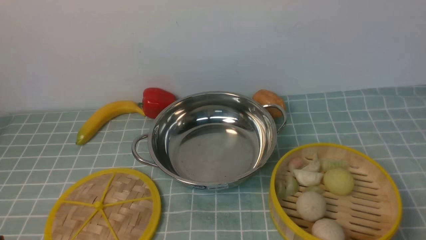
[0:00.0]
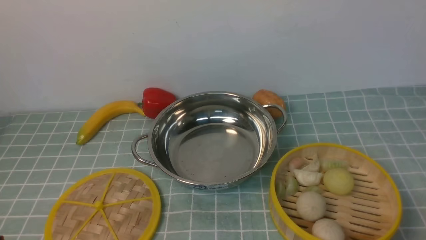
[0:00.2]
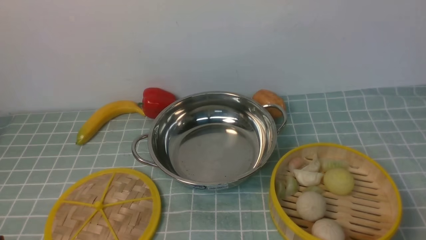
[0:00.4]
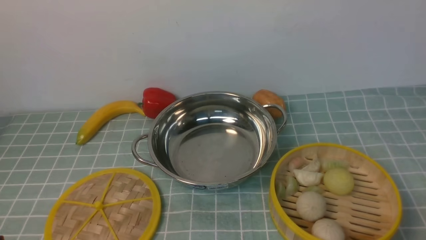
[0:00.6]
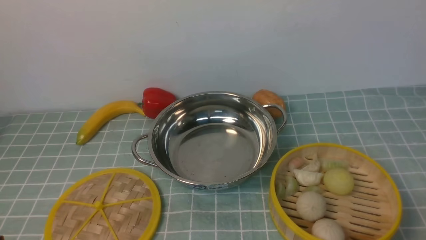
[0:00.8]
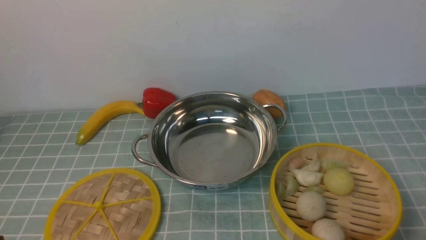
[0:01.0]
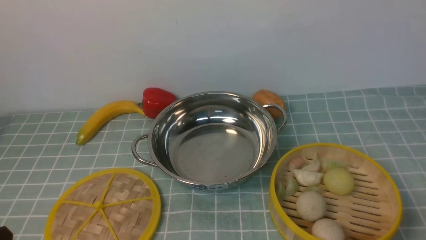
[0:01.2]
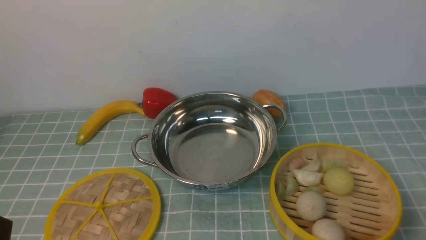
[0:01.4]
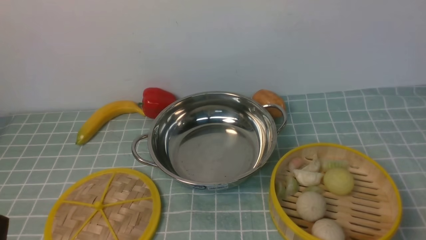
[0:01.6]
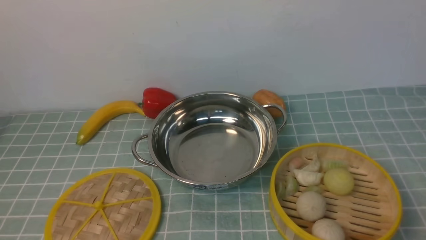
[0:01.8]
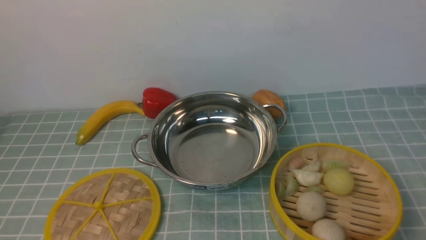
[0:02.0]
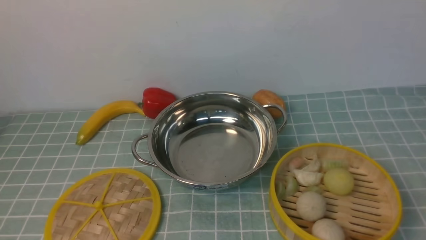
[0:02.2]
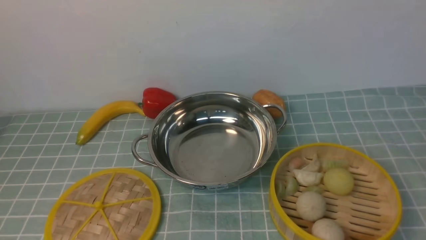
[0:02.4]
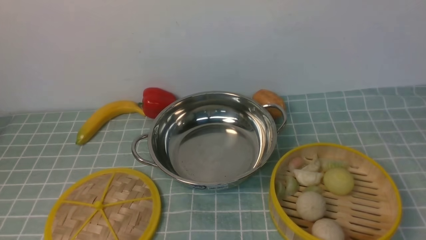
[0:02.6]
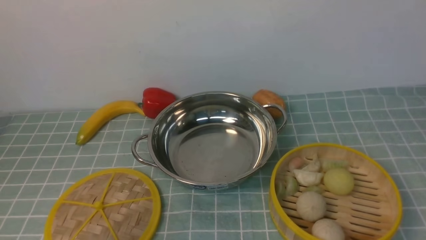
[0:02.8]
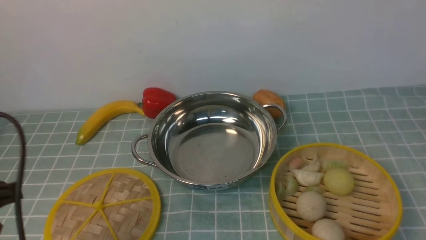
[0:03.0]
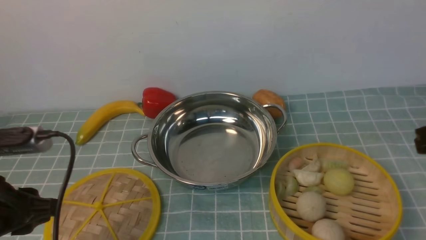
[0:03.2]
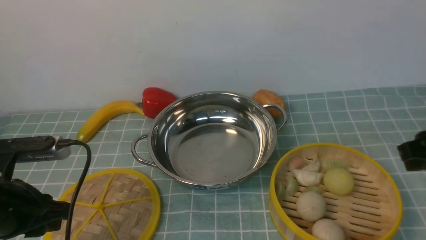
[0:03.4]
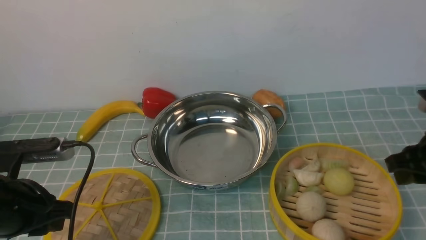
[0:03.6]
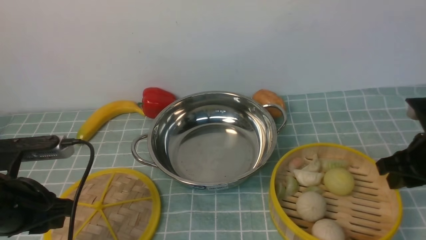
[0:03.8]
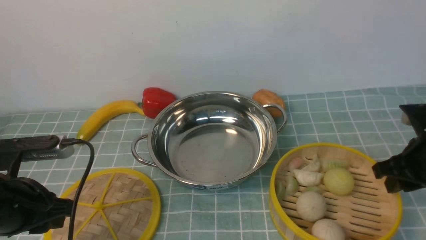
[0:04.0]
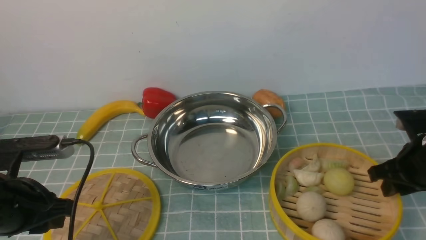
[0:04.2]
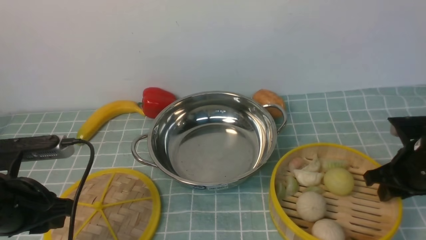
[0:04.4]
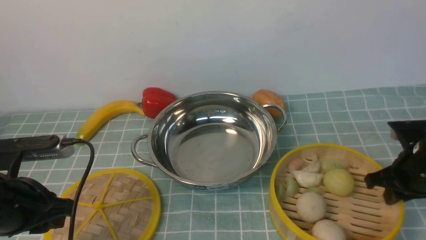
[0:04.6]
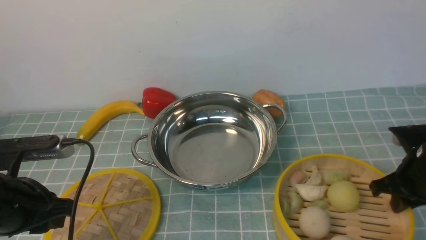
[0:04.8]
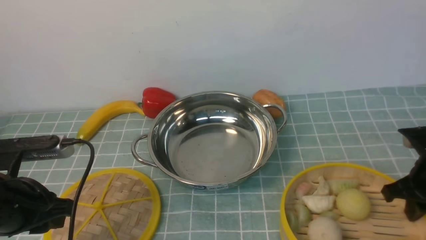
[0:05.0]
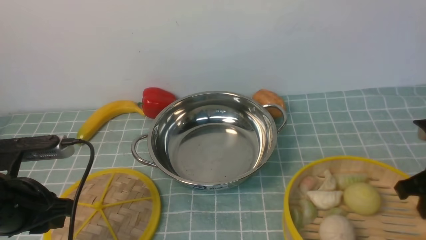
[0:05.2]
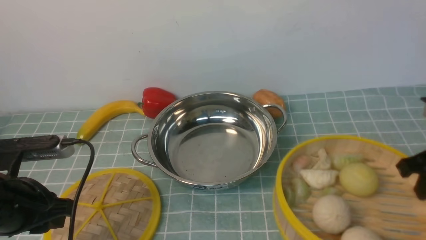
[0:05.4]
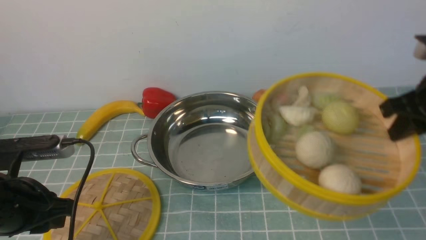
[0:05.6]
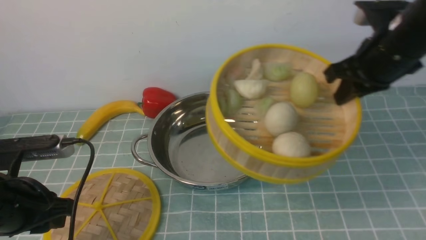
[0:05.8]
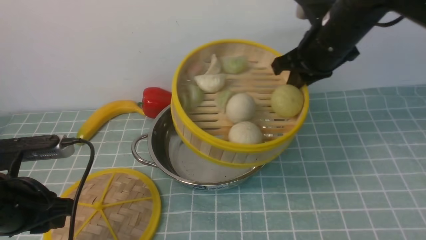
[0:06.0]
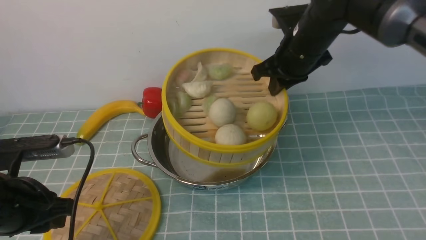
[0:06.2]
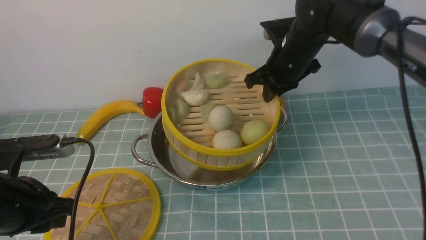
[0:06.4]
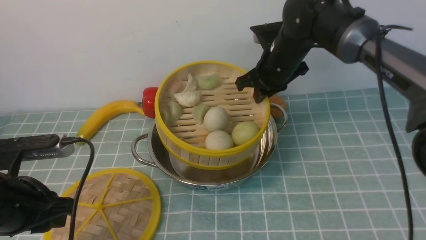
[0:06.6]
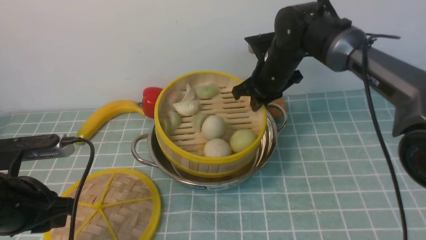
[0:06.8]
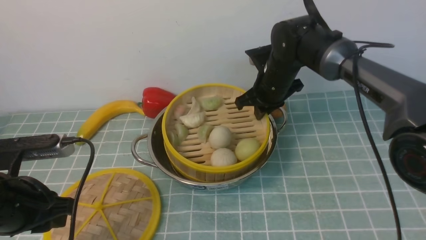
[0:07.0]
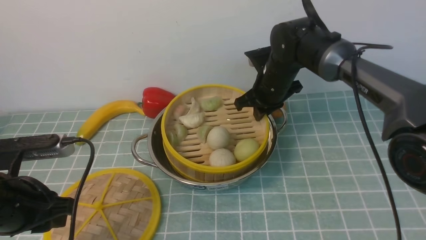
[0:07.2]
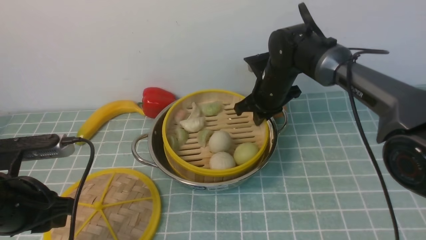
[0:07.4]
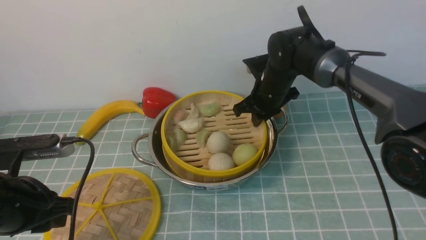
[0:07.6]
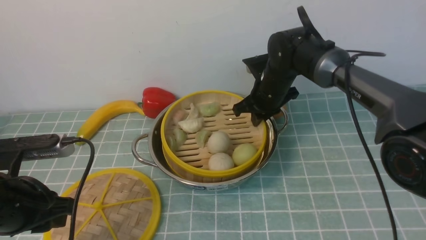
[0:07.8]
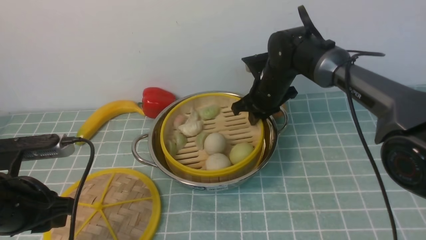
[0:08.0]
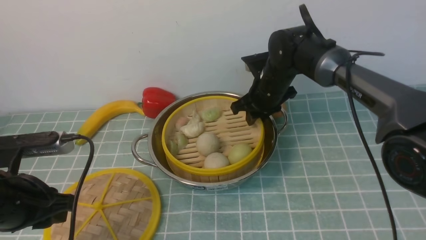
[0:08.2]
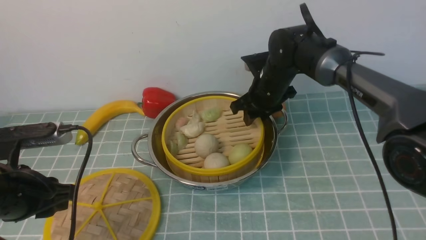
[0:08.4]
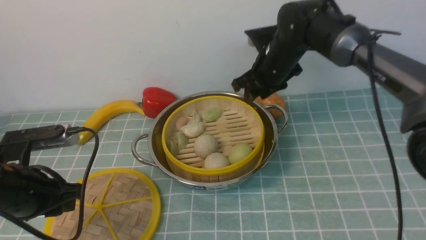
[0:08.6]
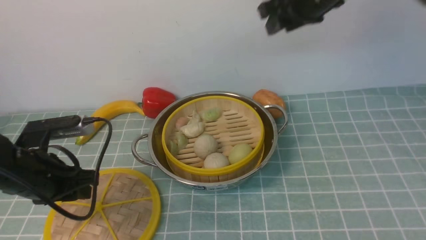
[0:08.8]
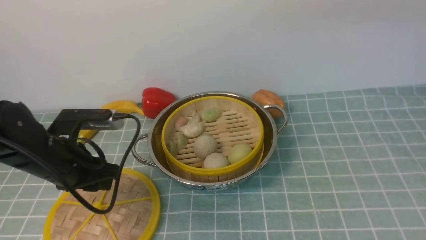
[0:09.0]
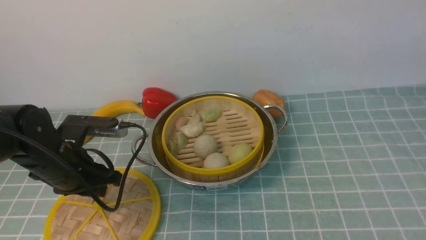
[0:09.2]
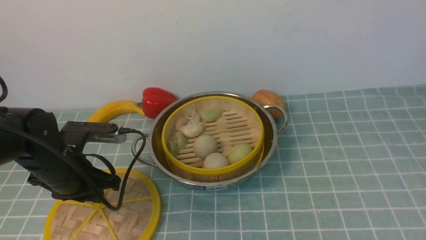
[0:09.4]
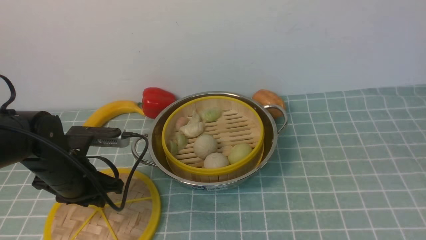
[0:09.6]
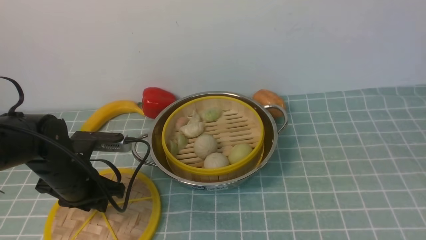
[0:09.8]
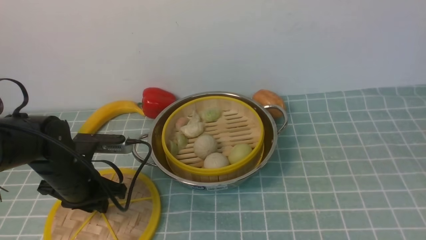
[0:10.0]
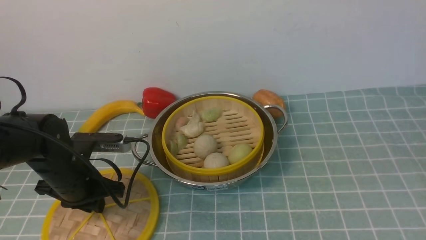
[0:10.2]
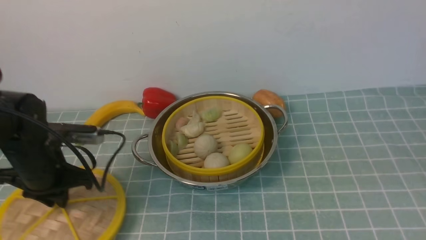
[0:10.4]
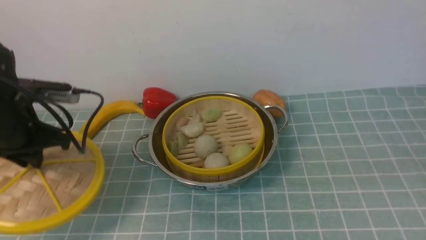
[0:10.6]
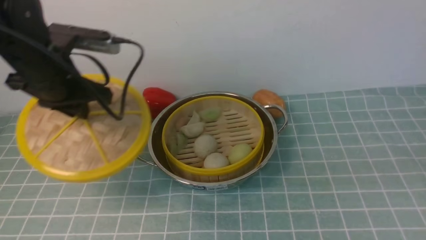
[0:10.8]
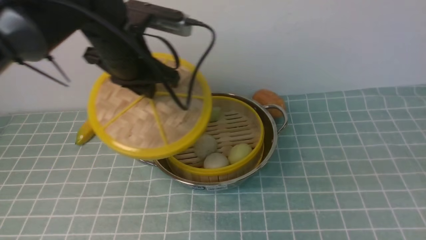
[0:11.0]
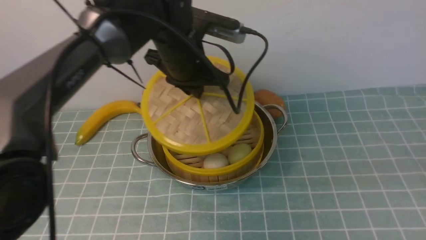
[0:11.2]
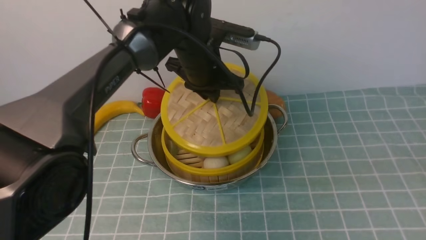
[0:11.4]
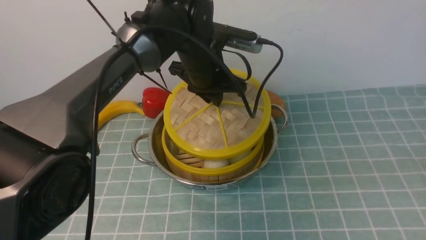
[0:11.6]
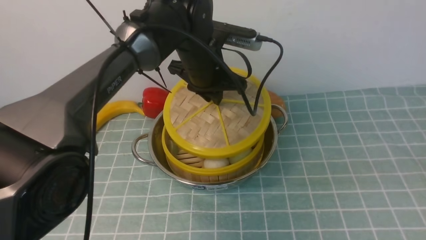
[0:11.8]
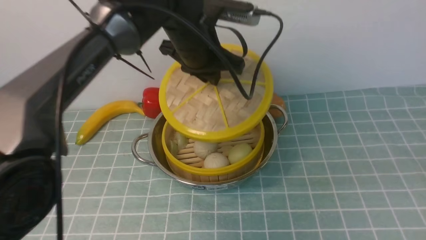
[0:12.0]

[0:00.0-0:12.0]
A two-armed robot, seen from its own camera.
Task of the whole recording: place the steamer in the pot on the blue tablecloth, and put the lid on the steamer.
Step, 0:00.0 to 0:05.6: use the right arm to lift the steamer closest to it.
Step, 0:05.8 to 0:08.6: use the right arm to put the steamer into the iron steamer pot in the middle.
Step, 0:08.8 to 0:10.4: use the left arm to lift the lid of the steamer.
0:01.6 to 0:03.0: The left gripper shifts approximately 15 cm upward and forward.
0:03.0 to 0:04.4: The right gripper shifts about 20 cm downward and forward. Meanwhile the left gripper moves forward and downward, approximately 10 cm.
0:04.4 to 0:06.0: The right gripper goes about 20 cm upward, to the left and forward, and closes its fingers.
0:06.0 to 0:07.6: The right gripper travels downward, to the left and forward by about 20 cm.
0:07.6 to 0:09.0: The left gripper shifts about 5 cm forward. The right gripper moves upward and backward, roughly 30 cm, and opens its fingers.
0:10.4 to 0:12.0: The left gripper shifts approximately 25 cm to the right, upward and forward.

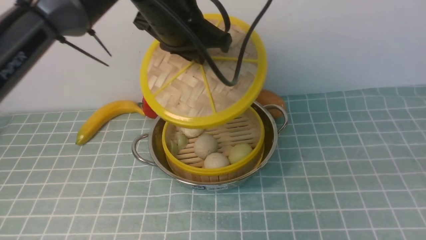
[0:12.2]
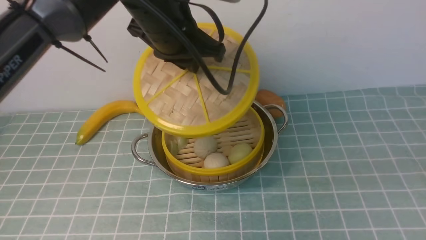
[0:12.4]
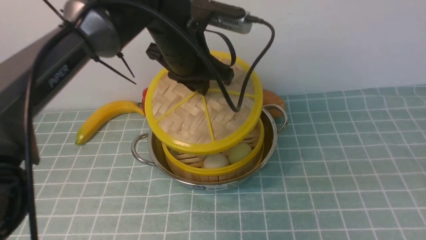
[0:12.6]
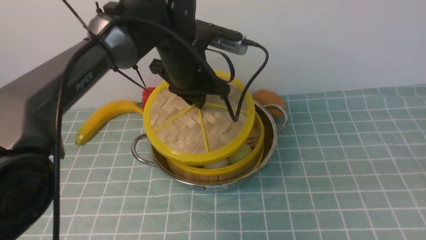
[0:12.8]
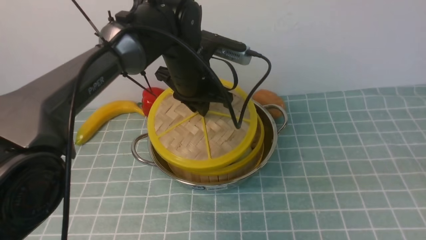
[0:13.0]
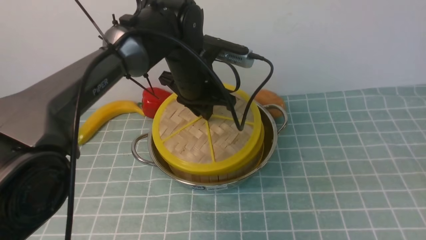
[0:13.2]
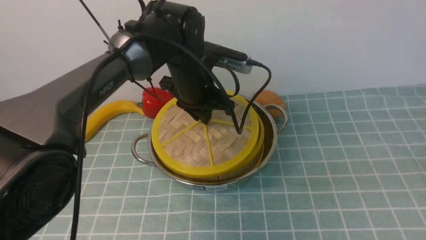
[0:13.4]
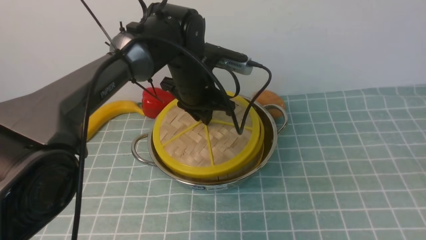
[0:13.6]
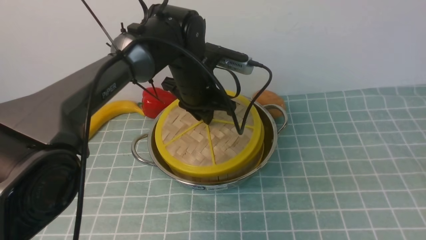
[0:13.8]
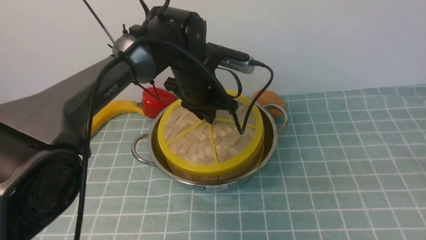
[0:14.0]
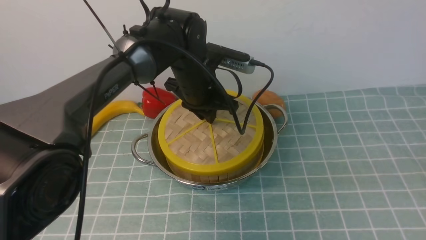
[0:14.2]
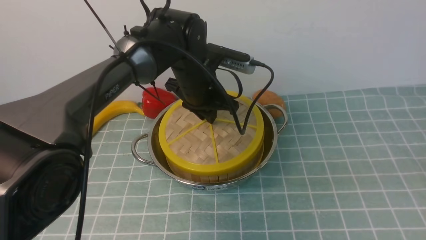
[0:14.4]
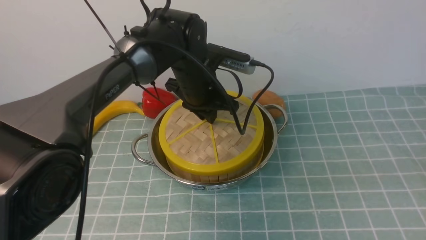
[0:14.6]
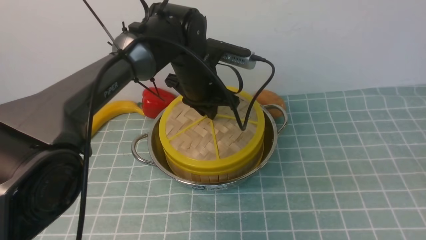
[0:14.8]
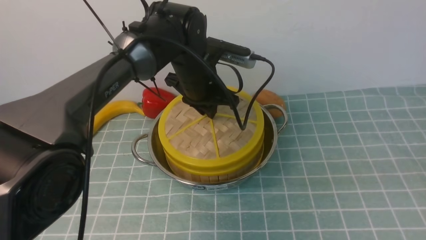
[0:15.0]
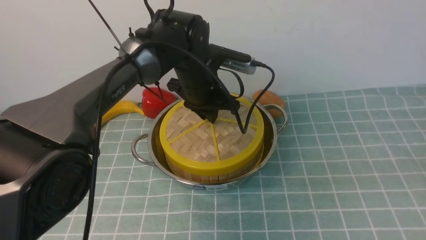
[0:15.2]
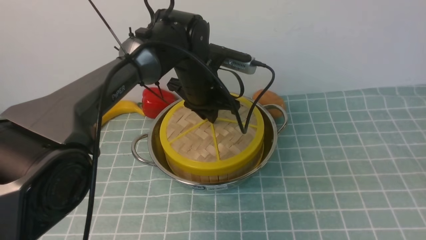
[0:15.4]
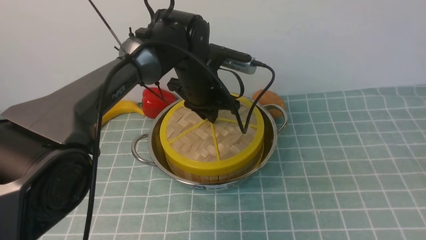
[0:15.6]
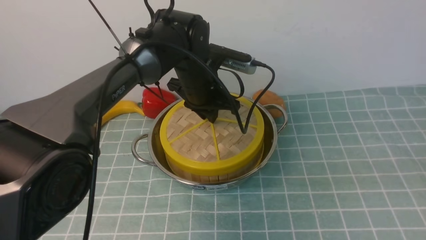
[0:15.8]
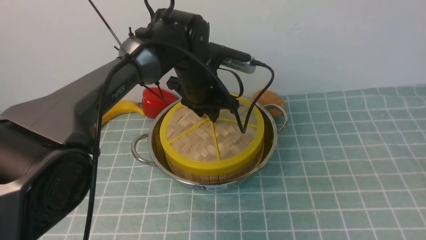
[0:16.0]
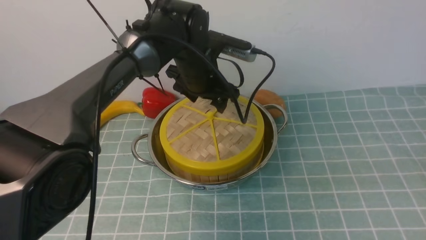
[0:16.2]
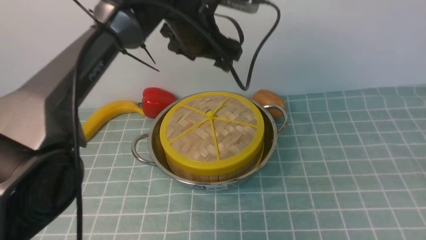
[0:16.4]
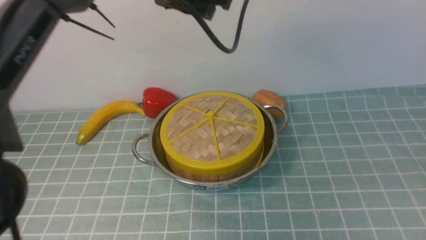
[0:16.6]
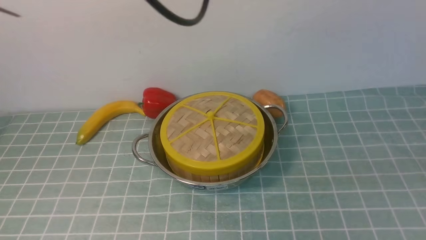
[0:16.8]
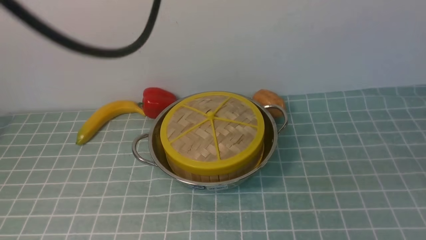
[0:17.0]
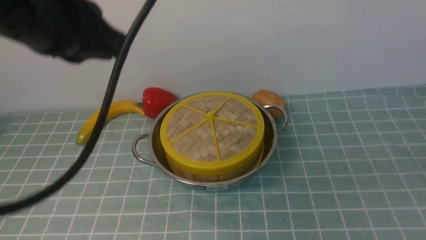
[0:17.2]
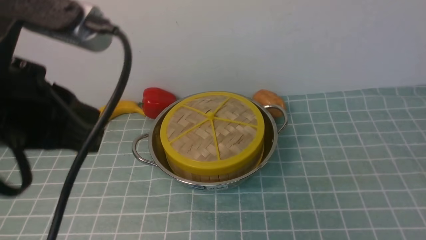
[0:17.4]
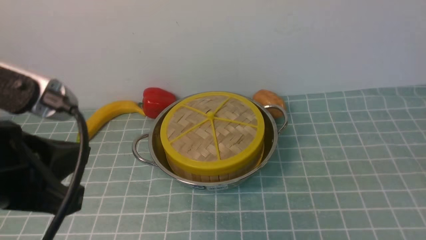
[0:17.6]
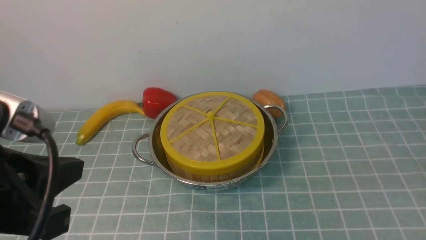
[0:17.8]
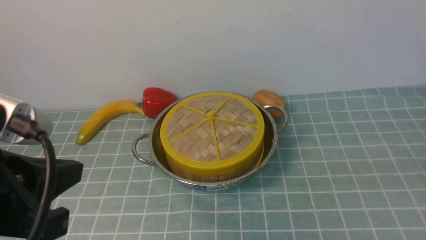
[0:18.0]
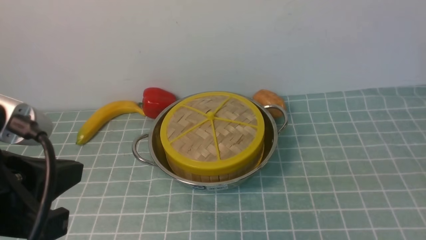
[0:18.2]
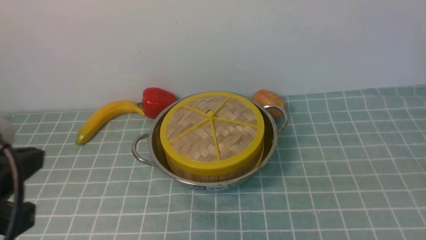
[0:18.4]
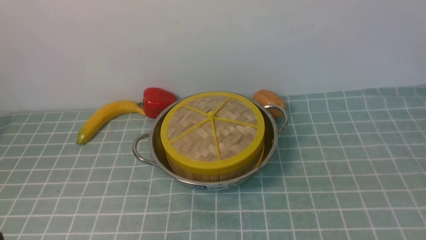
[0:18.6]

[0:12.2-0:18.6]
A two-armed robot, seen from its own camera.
Task of the whole recording: place the steamer in the pot on the blue tablecloth, and put the lid on the steamer.
Step, 0:12.2 to 0:16.6: use the left arm to place the steamer lid on the steamer.
0:12.2 to 0:13.8: The left gripper moves downward, roughly 10 cm.
0:13.8 to 0:15.4: Both grippers stay about where they are.
0:15.4 to 0:17.0: The left gripper travels upward and backward by some 30 cm, and opens, then closes again. The right gripper ends up about 5 cm from where it was.
0:17.0 to 0:18.6: The left gripper shifts some 30 cm backward, downward and to the left.
